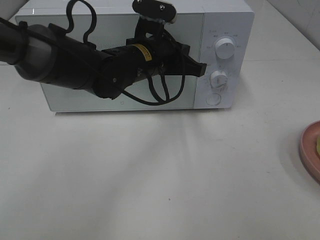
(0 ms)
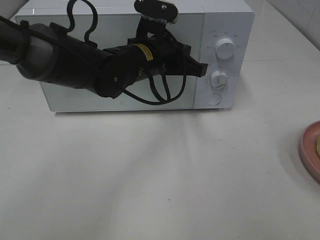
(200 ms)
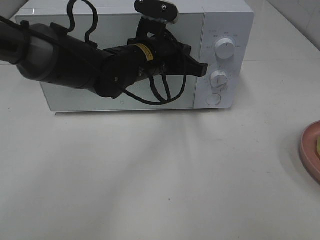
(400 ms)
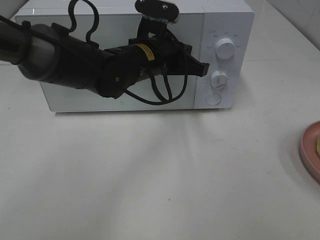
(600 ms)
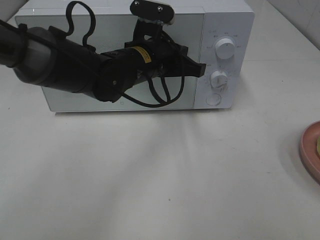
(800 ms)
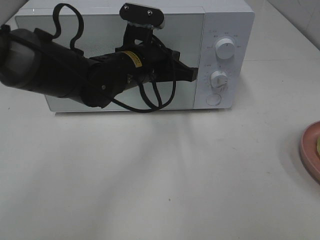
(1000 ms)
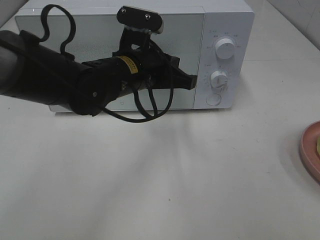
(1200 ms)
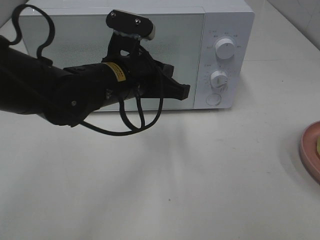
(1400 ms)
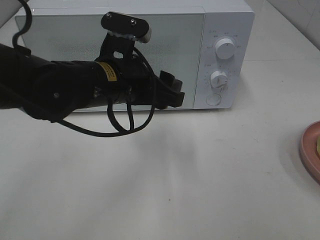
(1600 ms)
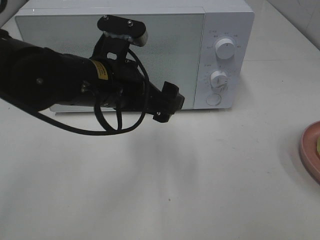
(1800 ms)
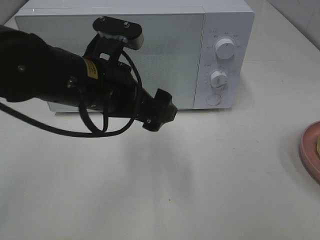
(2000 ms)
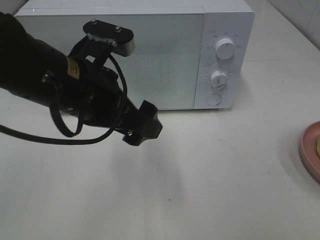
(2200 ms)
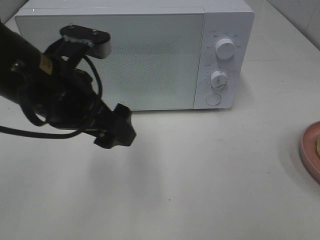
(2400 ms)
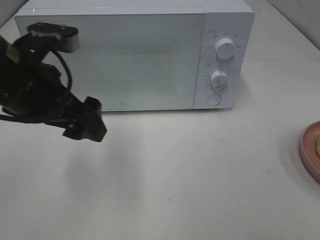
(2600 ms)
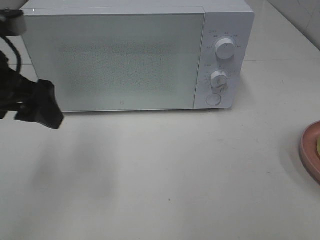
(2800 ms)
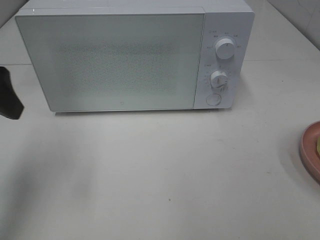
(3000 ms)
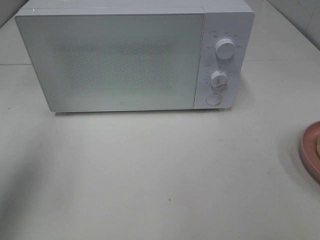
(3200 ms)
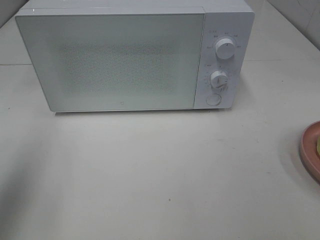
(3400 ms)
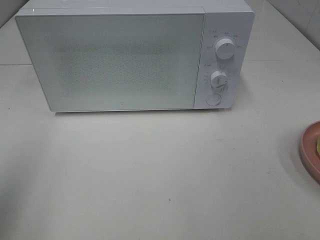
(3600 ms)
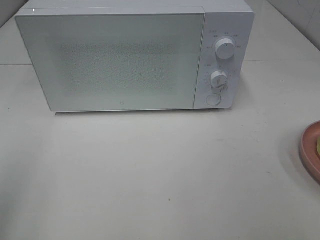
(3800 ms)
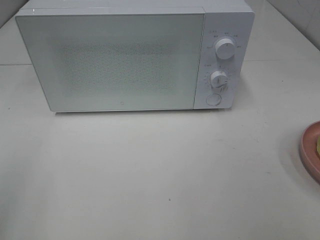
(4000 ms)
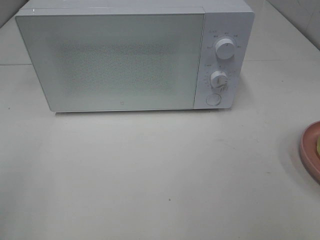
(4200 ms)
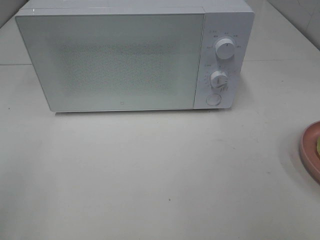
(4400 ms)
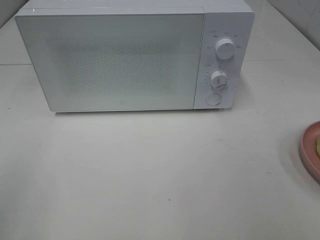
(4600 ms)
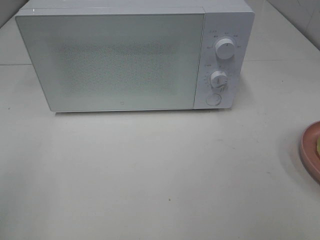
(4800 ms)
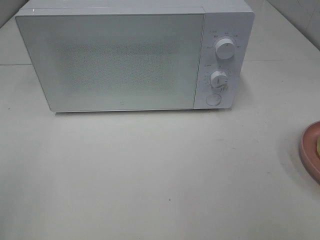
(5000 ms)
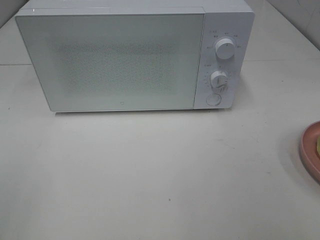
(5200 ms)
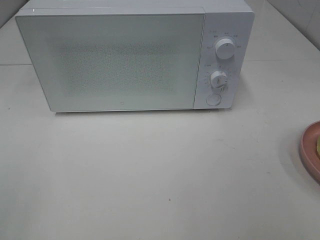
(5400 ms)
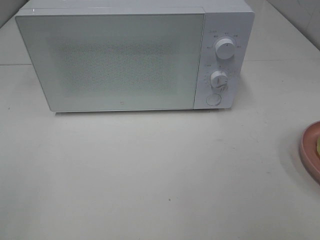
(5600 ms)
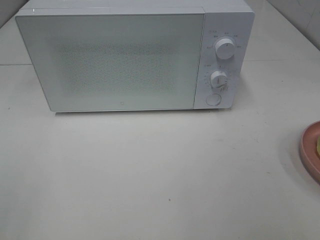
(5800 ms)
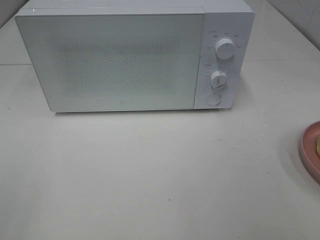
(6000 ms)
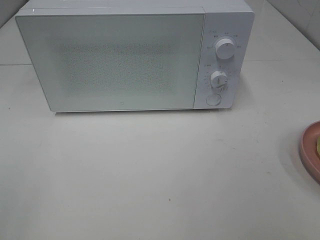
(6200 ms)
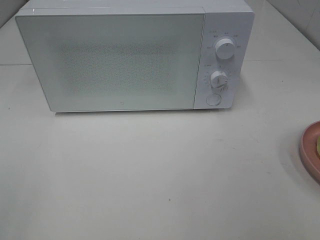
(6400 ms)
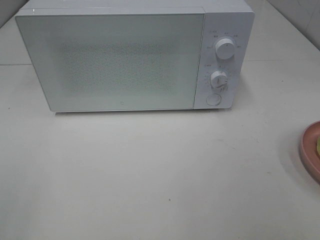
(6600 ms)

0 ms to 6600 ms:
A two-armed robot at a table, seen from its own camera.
Task of the whole recording: Heat Sandwich.
0 ms to 1600 ms: The left gripper heads backward, covering approximately 10 cm, and opens up.
1600 ms to 3200 ms: The left gripper heads to the left and upward, covering approximately 25 cm.
3200 ms to 5000 ms: The left gripper goes approximately 15 cm backward.

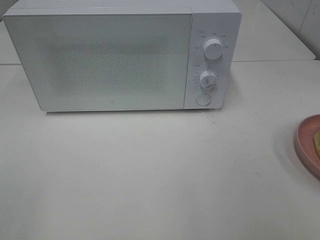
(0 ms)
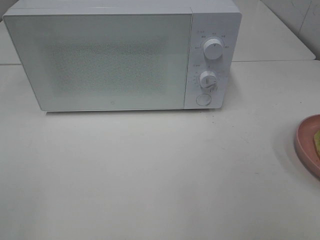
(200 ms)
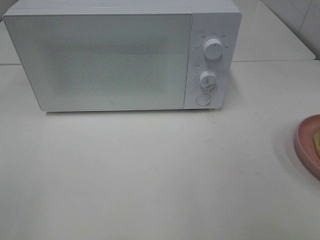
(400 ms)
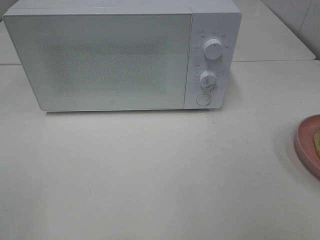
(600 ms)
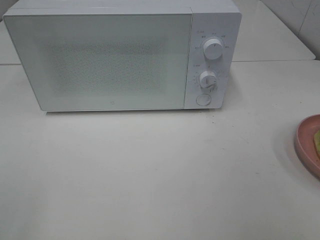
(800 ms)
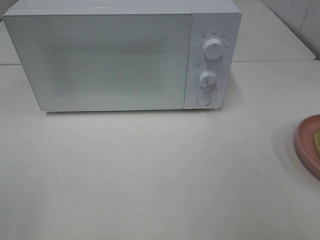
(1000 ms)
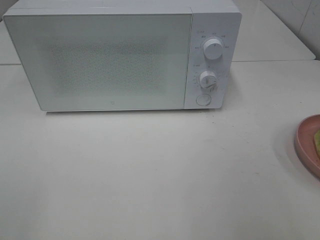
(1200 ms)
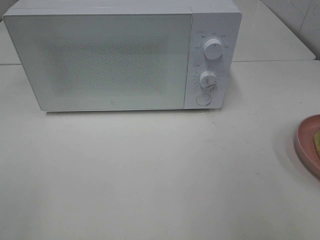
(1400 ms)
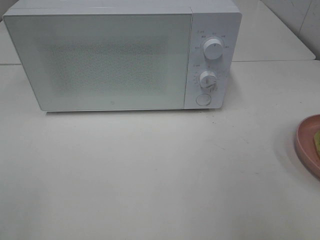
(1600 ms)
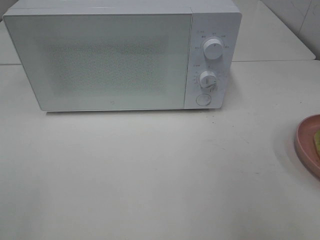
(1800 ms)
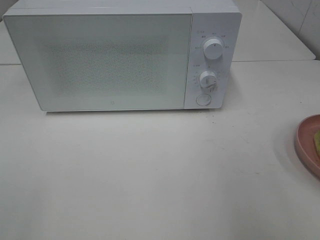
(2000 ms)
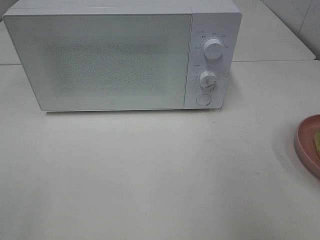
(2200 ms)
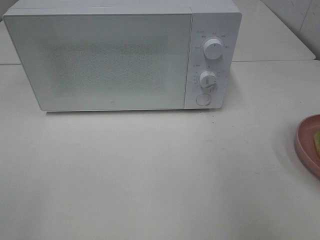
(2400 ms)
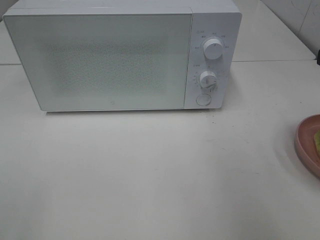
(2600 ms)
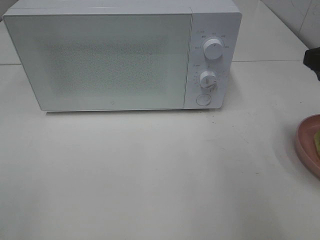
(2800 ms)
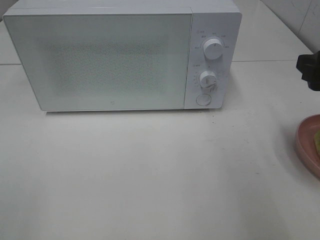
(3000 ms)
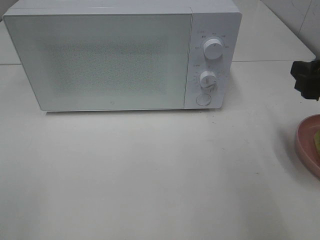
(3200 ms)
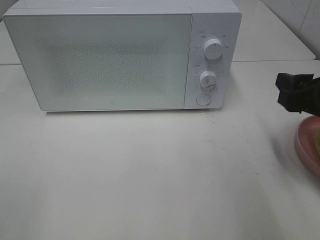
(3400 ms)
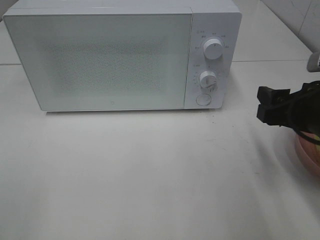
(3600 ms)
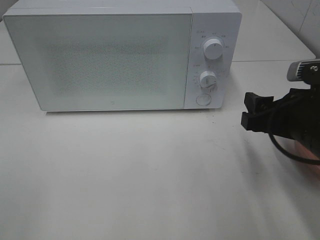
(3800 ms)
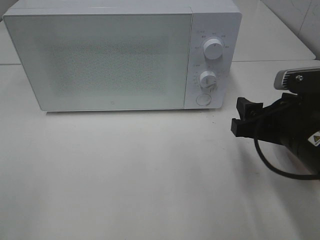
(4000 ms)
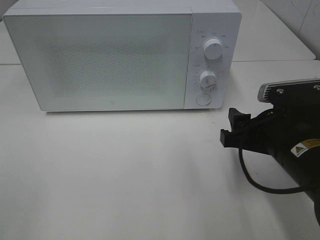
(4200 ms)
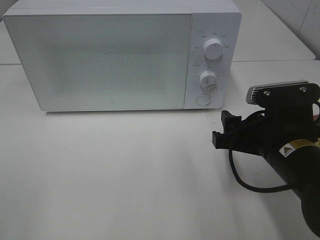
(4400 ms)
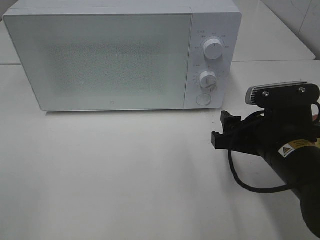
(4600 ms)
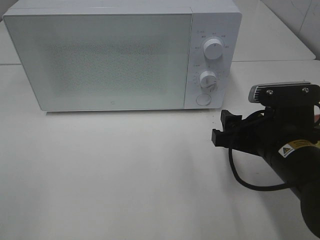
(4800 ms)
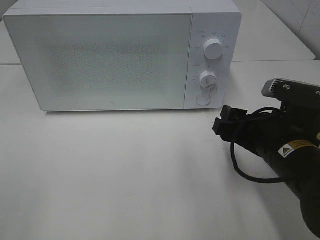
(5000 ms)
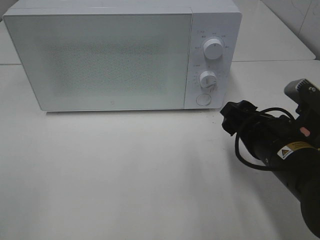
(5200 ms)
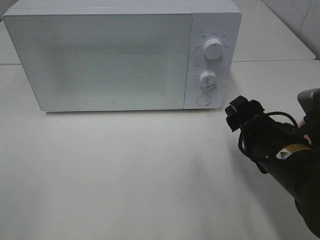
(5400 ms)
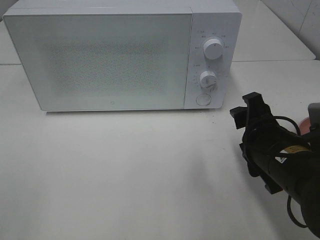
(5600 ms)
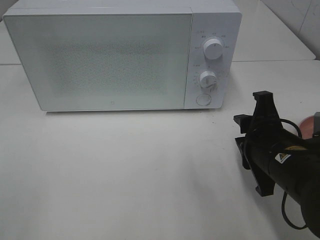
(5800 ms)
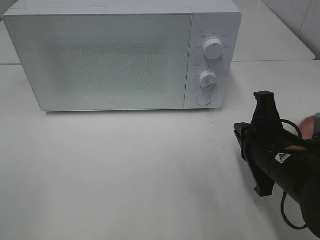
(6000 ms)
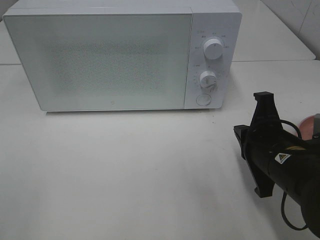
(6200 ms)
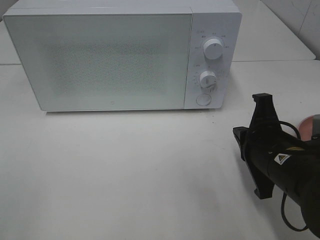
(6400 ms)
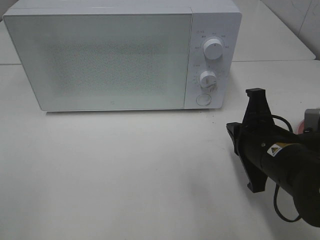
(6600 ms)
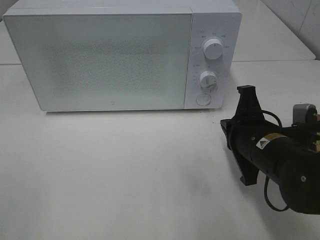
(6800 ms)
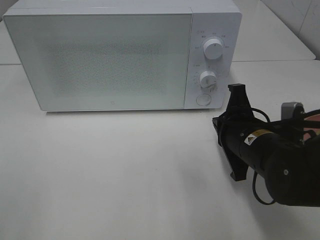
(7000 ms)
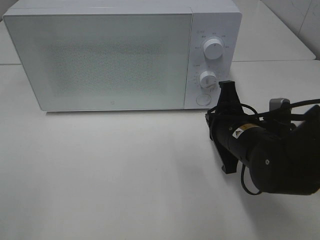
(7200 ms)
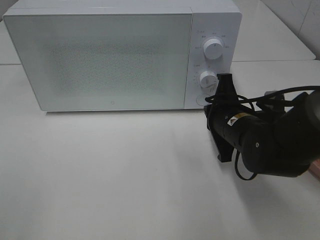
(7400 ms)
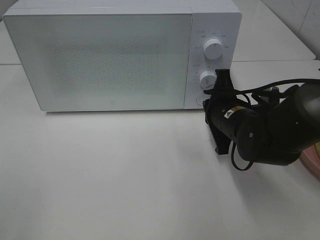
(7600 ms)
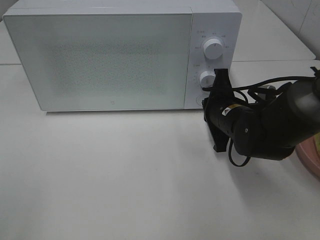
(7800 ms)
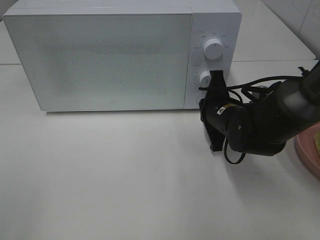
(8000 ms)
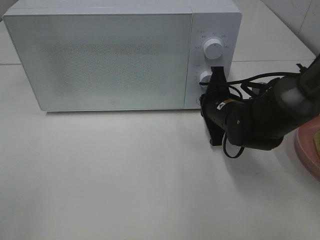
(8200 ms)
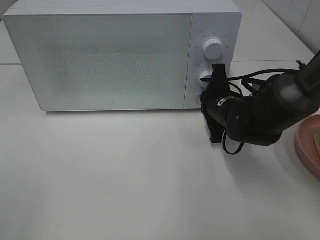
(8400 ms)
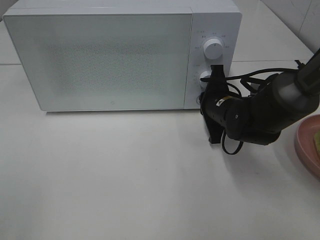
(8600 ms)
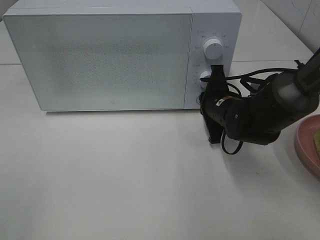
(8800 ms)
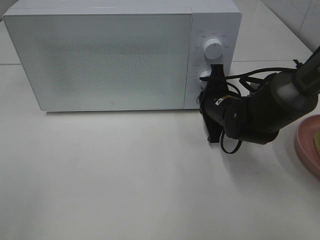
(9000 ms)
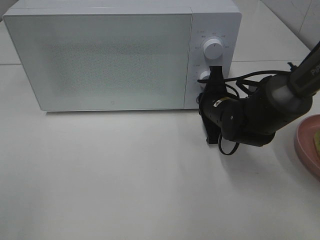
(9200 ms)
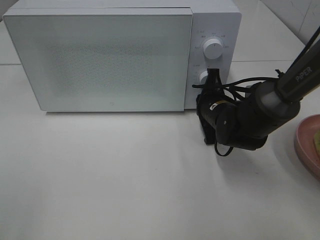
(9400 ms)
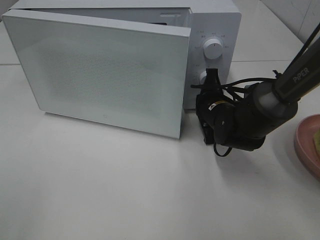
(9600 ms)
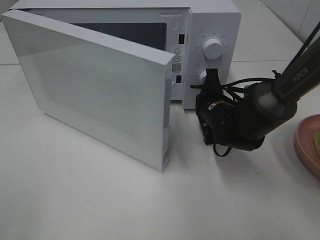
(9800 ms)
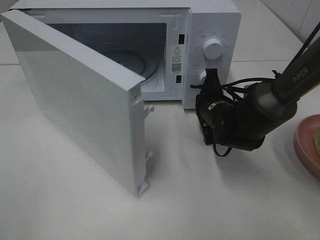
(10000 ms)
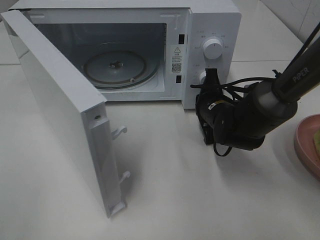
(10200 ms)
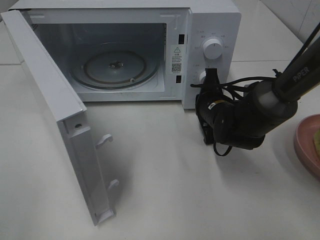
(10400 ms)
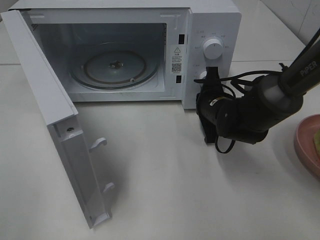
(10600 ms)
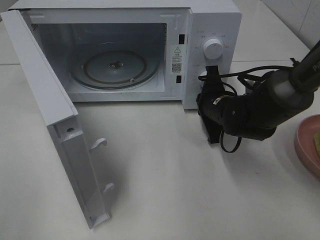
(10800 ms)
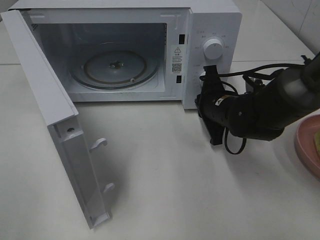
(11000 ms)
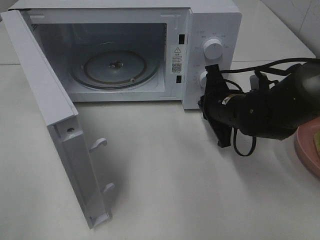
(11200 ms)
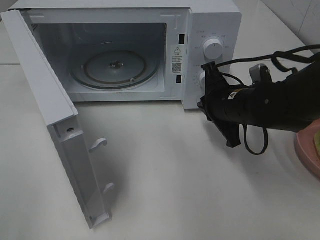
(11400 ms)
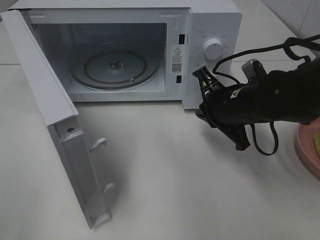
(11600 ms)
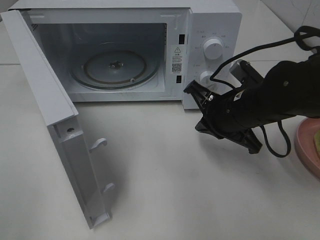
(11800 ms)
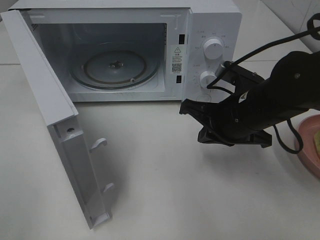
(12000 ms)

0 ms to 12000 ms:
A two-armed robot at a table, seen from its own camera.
Task of the whole recording: Heat Sandwich.
Step, 0 ms to 11200 ms: Right hand: press the switch.
1600 ms to 3000 ms: The right gripper is displaced forward and downward by roughly 15 cm.
3000 ms to 4400 ms: The right gripper heads to the left and downward, covering roughly 15 cm.
4400 ms to 6000 ms: The right gripper closes.
6000 ms to 7600 ms: The right gripper moves forward, roughly 10 cm.
7600 ms to 9000 ms: The grippers move only a little.
10400 ms to 12000 ms: The right gripper goes approximately 10 cm backward and upward.

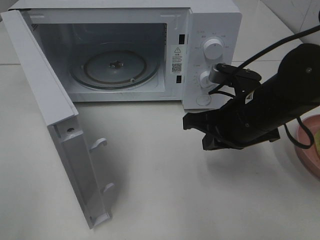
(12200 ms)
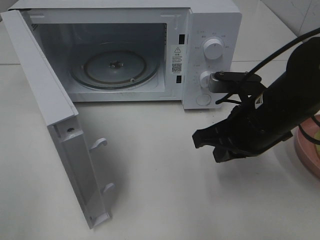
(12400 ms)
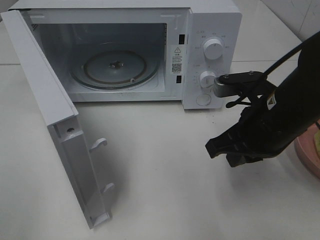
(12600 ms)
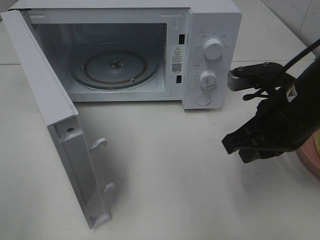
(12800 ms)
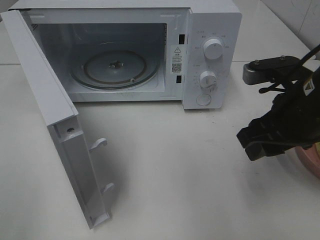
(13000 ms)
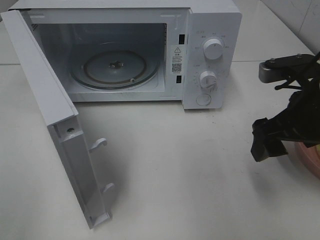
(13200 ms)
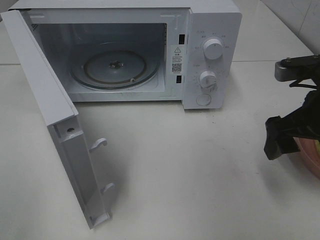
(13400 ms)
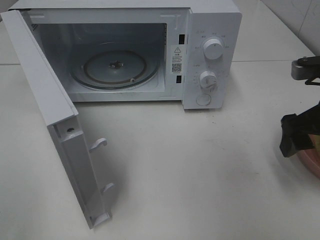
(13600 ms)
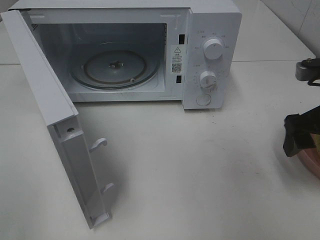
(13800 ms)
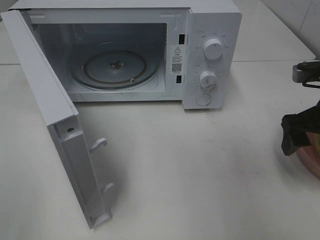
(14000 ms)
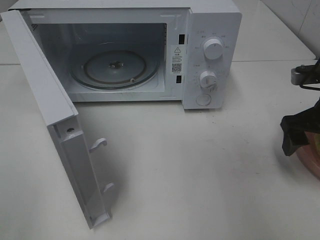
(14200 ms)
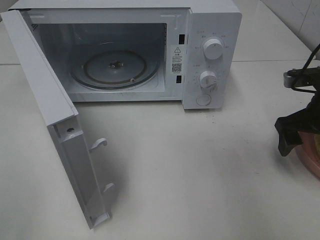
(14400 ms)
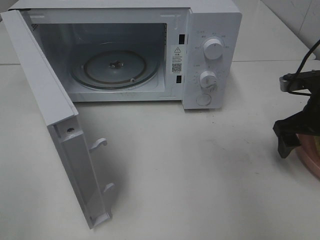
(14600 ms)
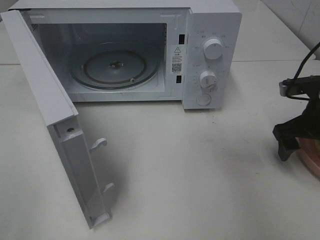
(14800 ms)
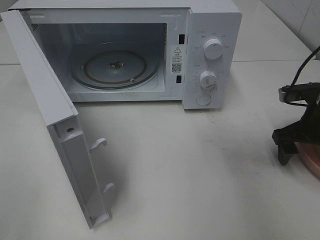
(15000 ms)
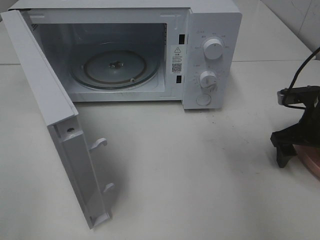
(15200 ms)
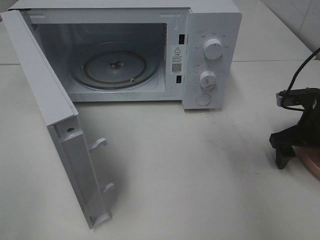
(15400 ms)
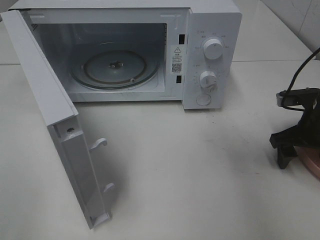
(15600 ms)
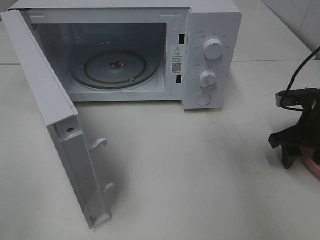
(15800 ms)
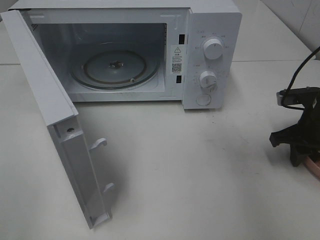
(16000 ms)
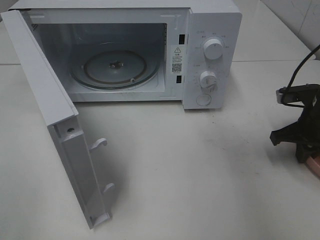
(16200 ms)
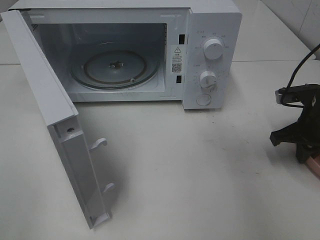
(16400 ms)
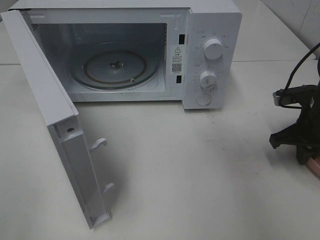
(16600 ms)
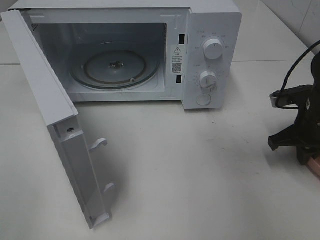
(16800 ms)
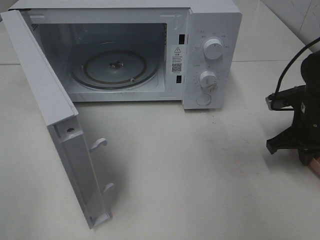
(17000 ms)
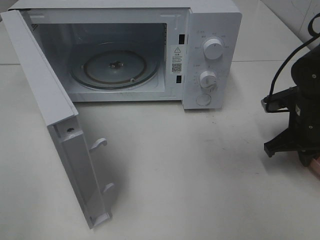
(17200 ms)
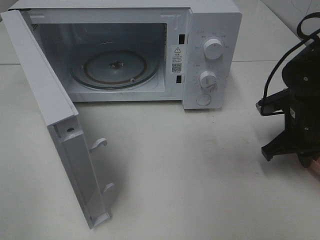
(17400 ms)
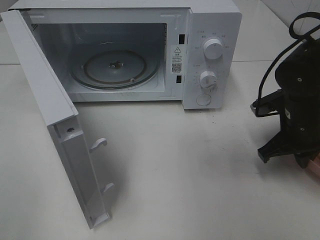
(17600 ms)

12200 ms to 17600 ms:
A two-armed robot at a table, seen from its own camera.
Task of the whole recording: Heat Sandwich.
Step, 12200 ms to 17000 ms: Right hand: grab the plate with the sandwich.
12200 ms to 13600 ms: The right gripper goes about 10 cm to the right, and opens up.
13600 ms to 15000 ms: The right gripper travels downward and forward by roughly 10 cm.
15000 ms to 16200 ms: The right gripper closes its fingers.
16200 ms to 17600 ms: The right gripper moves to the left, roughly 5 cm.
